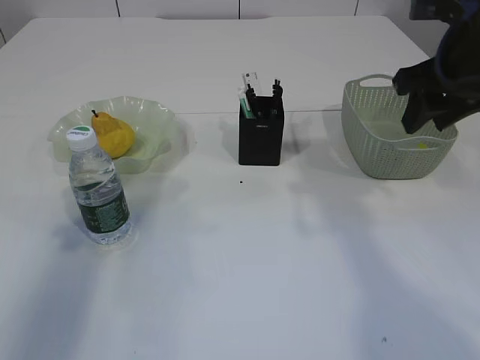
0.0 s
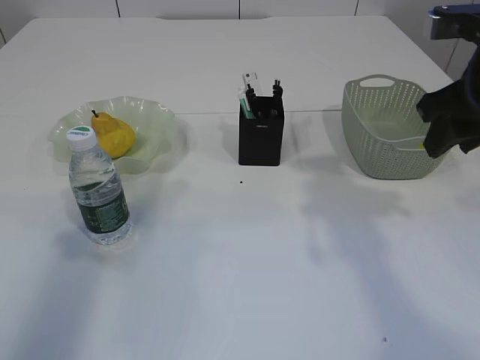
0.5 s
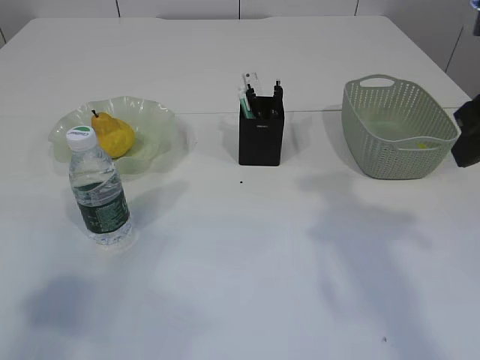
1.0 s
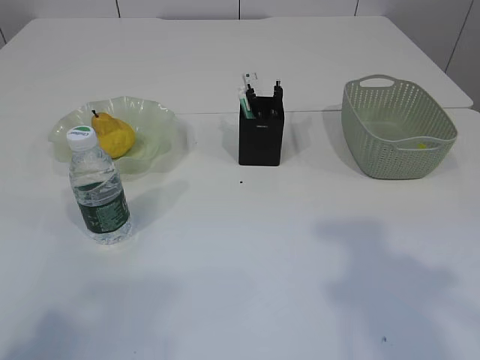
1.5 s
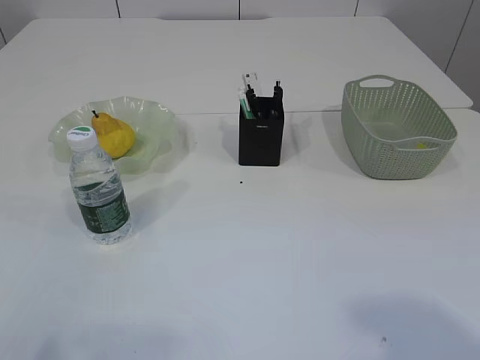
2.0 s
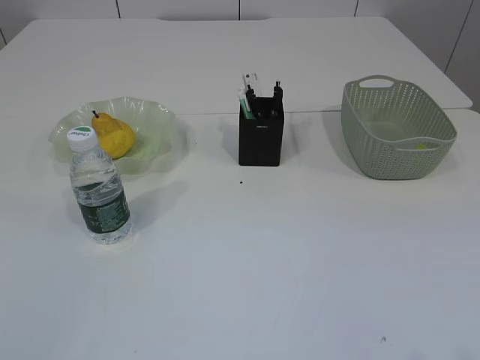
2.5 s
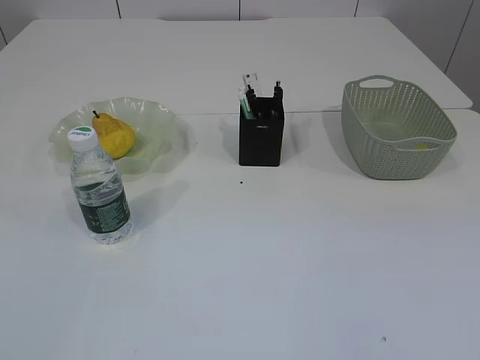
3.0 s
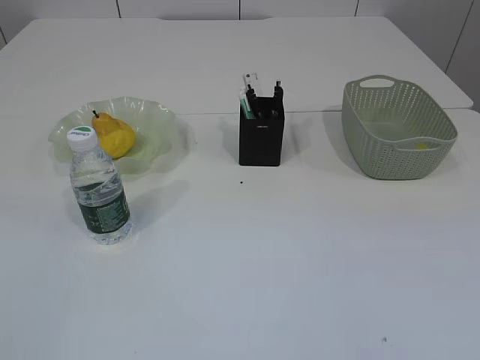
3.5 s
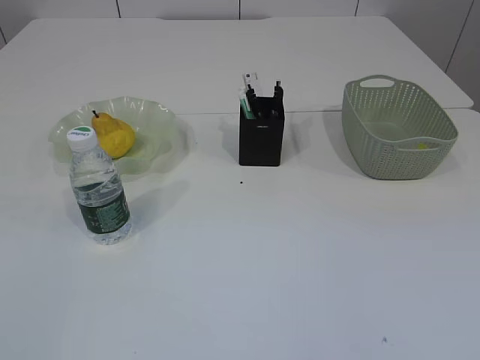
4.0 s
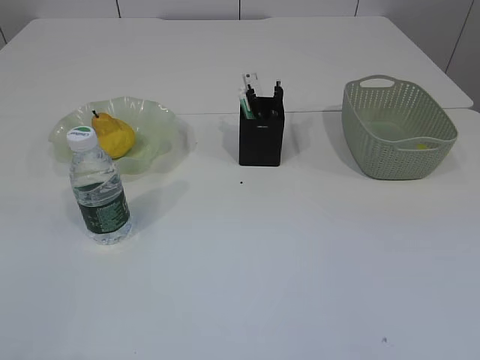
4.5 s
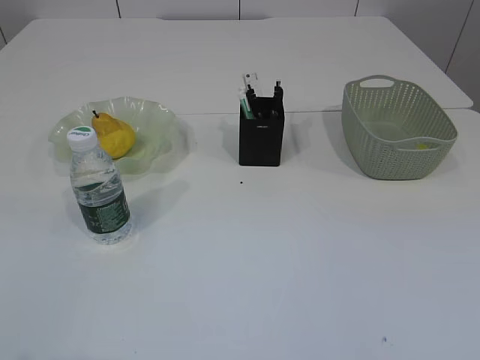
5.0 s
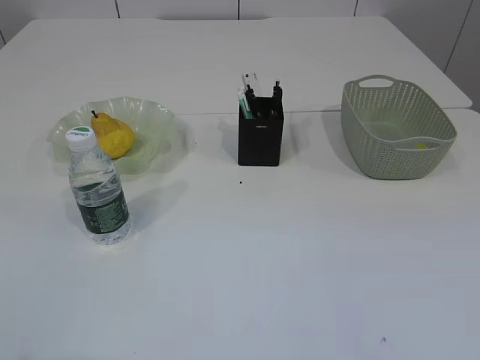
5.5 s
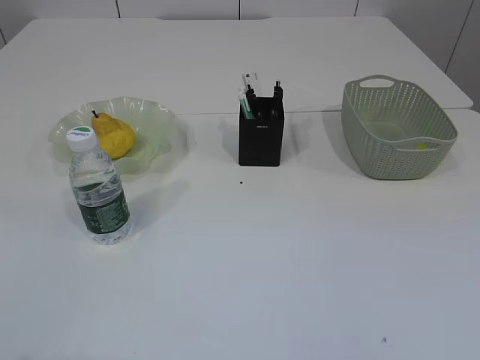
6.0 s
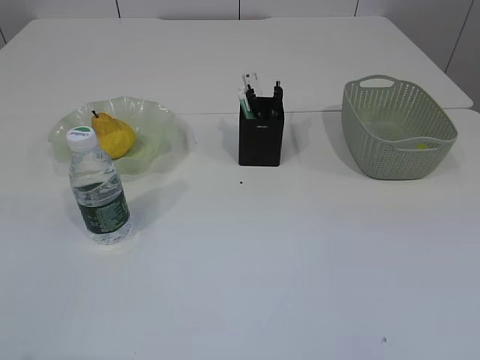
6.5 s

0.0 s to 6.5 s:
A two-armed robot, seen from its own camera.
0.0 to 2.0 s: The grippers both shift backward by roughly 25 cm.
